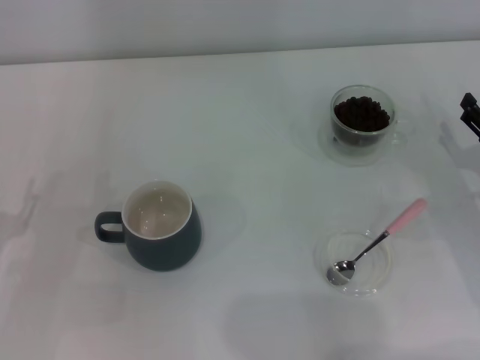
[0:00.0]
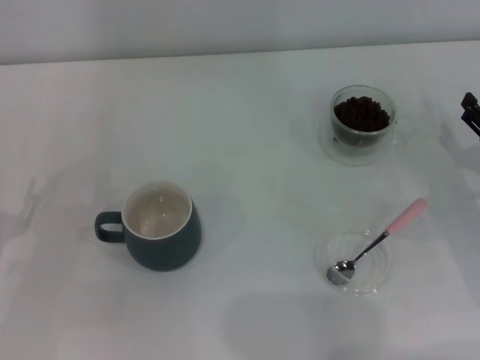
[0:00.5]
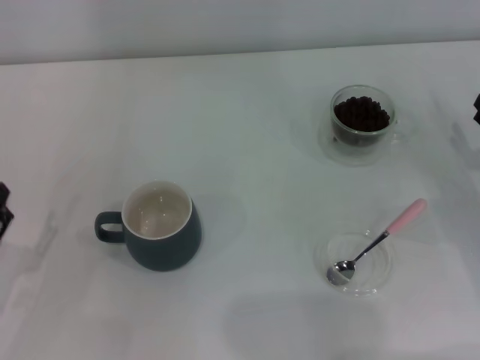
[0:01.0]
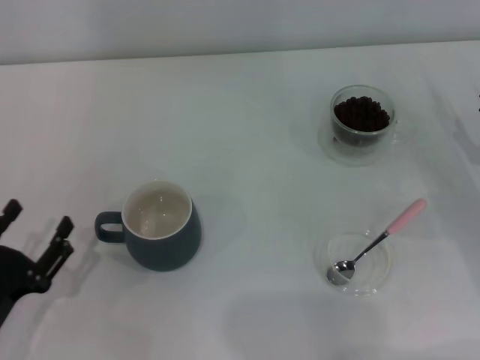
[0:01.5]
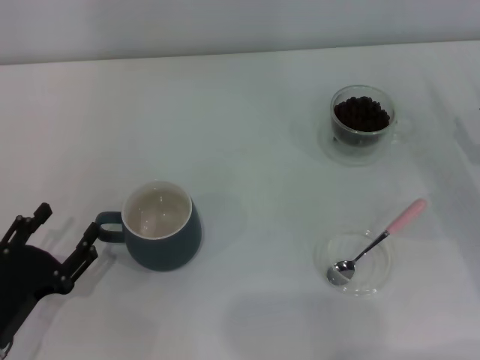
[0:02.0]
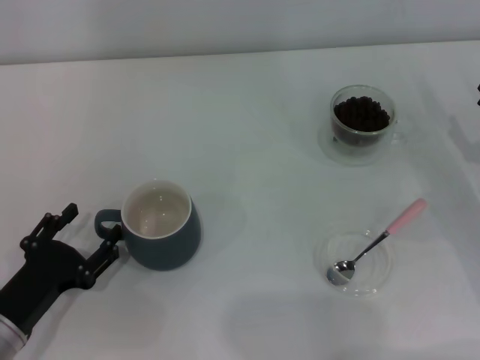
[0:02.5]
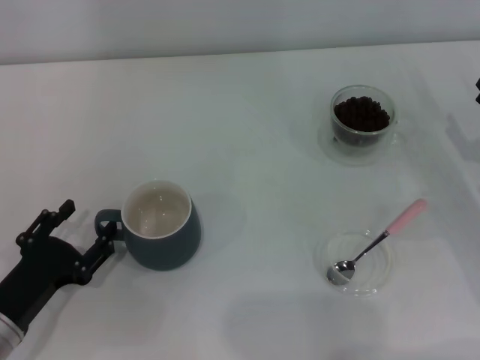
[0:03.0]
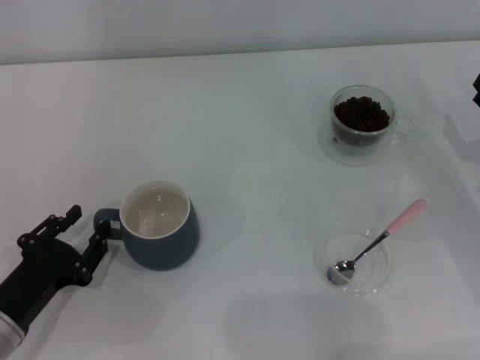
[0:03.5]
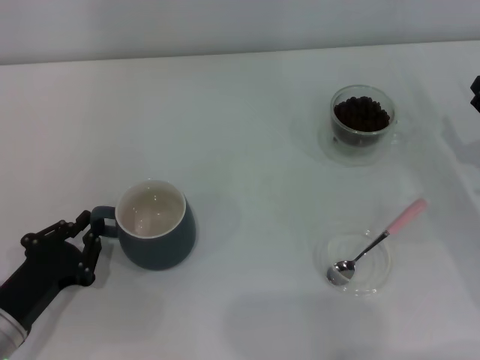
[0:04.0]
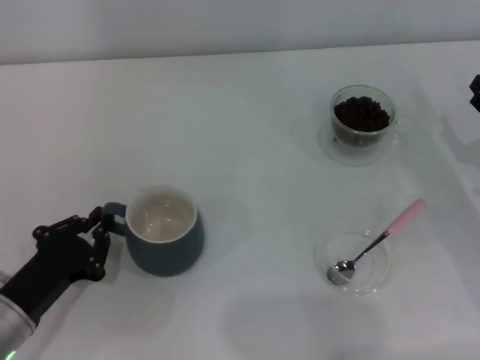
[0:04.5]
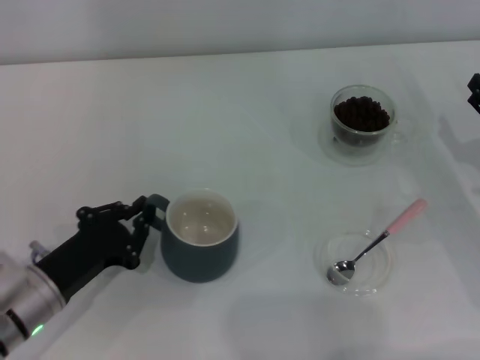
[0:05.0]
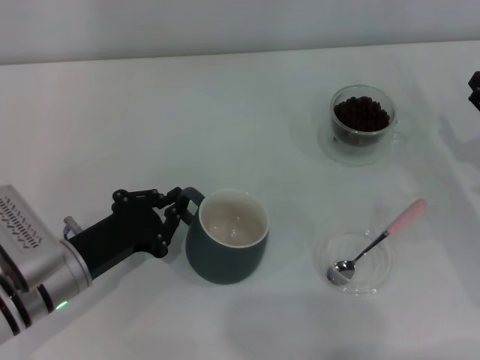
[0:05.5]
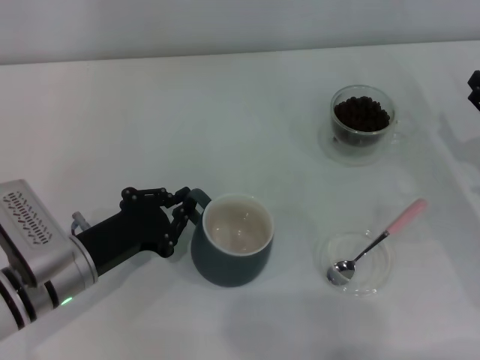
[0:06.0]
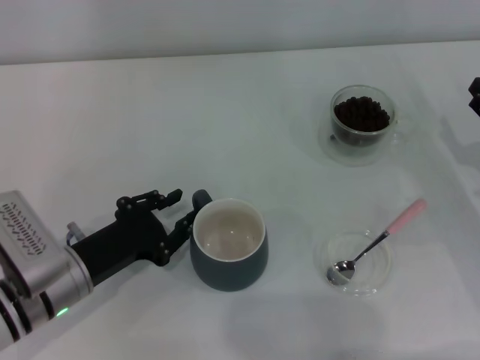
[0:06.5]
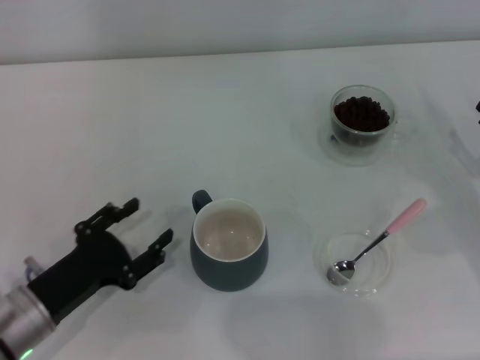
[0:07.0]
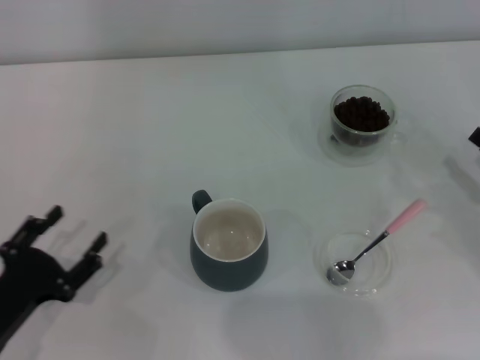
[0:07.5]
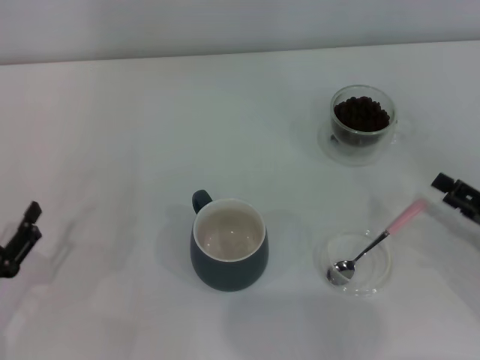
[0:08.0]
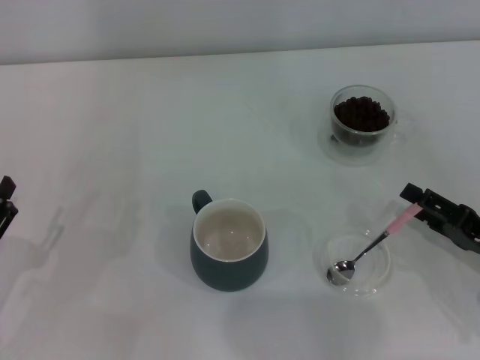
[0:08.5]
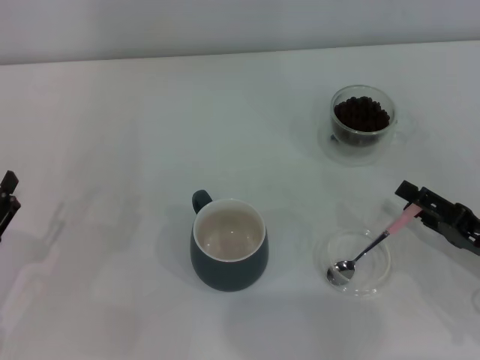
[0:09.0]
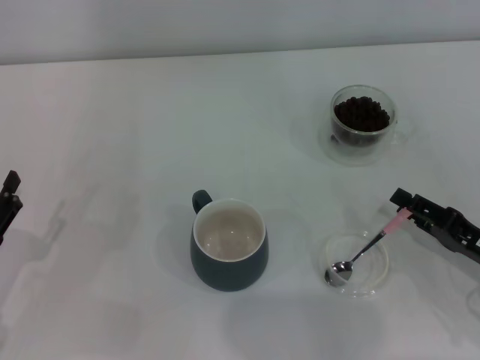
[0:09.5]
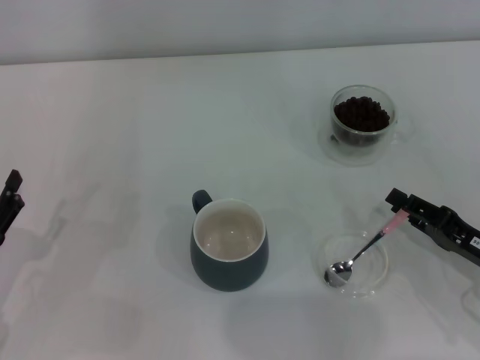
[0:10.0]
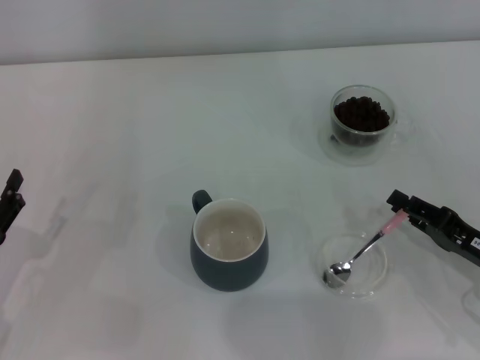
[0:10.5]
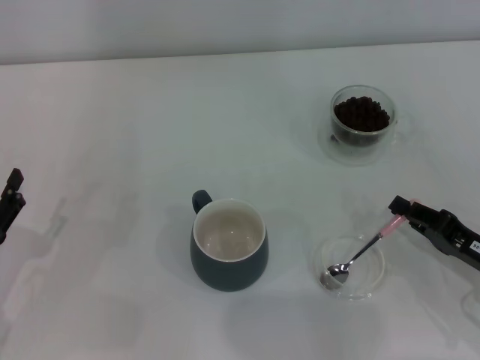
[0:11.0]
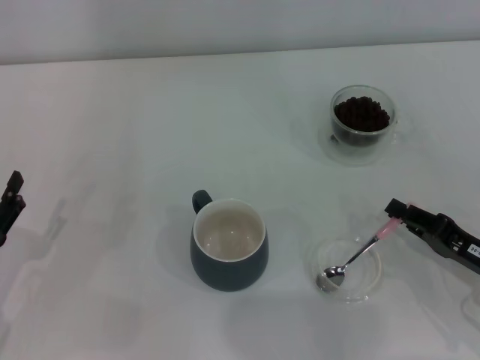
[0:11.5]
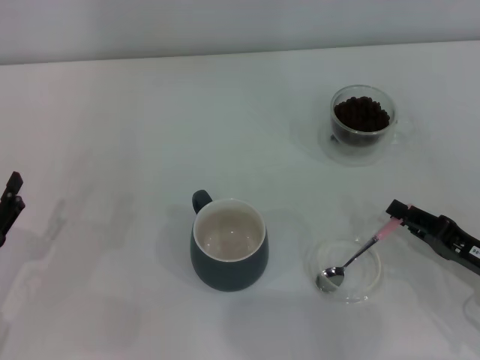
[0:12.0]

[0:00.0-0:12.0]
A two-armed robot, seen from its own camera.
Task of the whole recording: Use a pink spoon to take out the coffee beans from the glass and pour them into the gray cup.
Step, 0:00.0 to 0:07.0: Move the cup to the center of view with the left gripper.
0:00.0 to 0:02.0: The left gripper ends up some 5 cm from where it was.
0:02.0 to 0:04.0: The left gripper closes up.
0:04.0 to 0:06.0: The left gripper shifts some 10 cm forward and to the right.
0:06.0 to 0:08.0: The right gripper is displaced backward by roughly 5 cm, while the left gripper goes about 15 cm to the left and backward, and opens up.
0:08.0 to 0:10.0: The right gripper closes.
0:10.0 to 0:12.0: The two grippers keep their place.

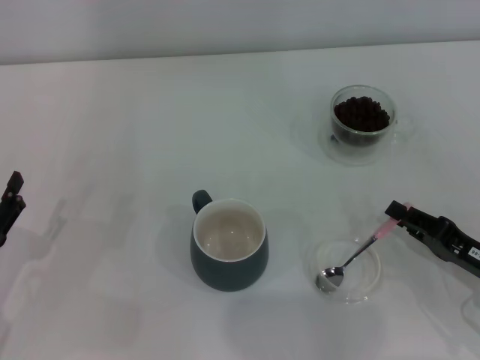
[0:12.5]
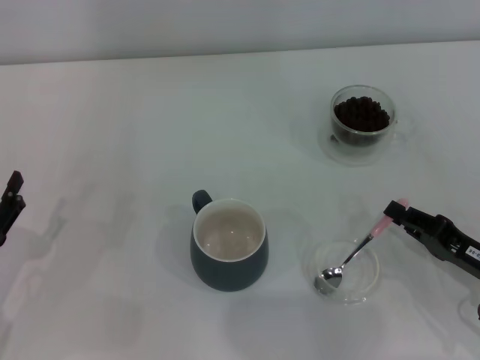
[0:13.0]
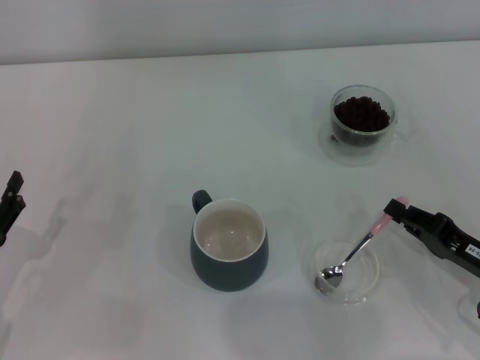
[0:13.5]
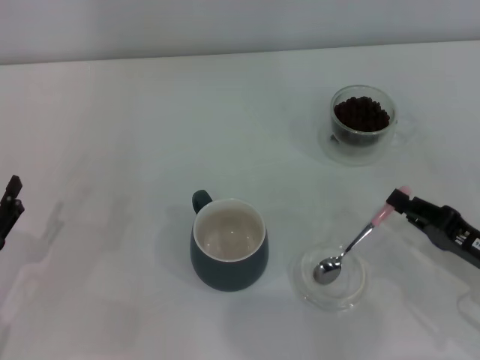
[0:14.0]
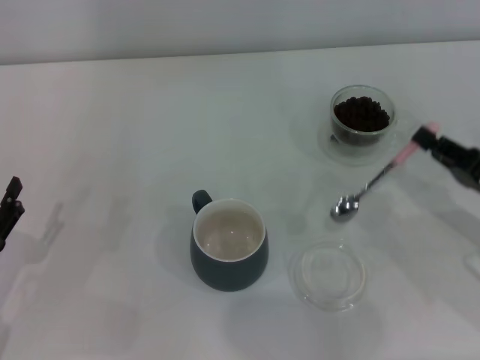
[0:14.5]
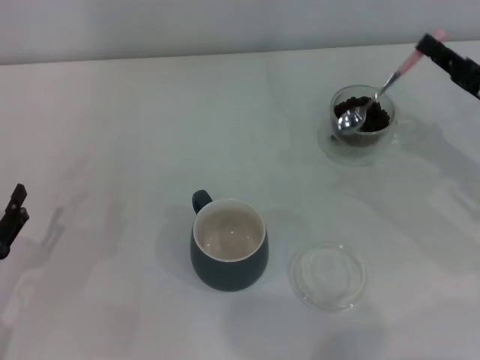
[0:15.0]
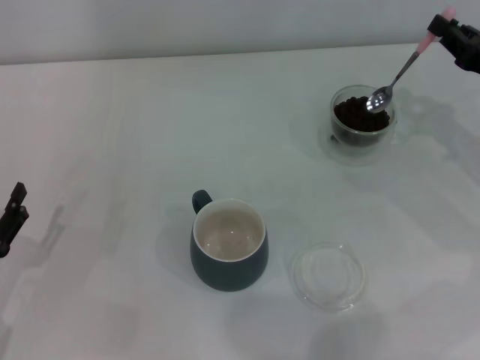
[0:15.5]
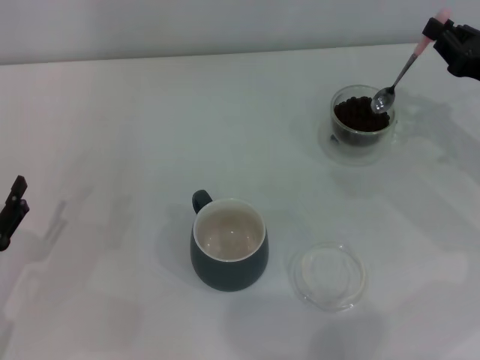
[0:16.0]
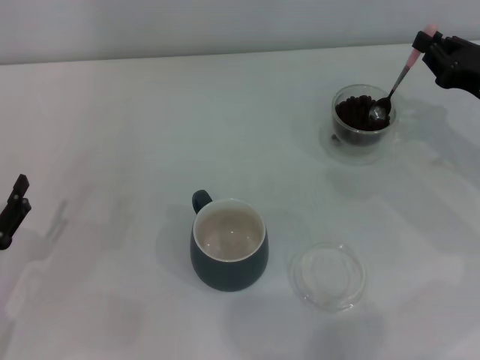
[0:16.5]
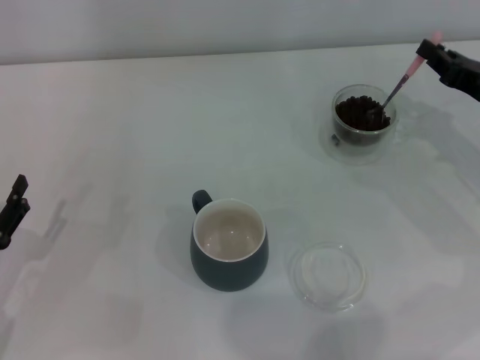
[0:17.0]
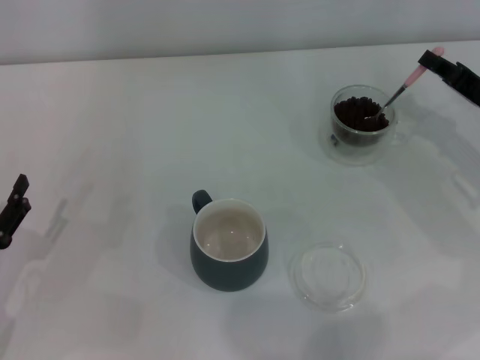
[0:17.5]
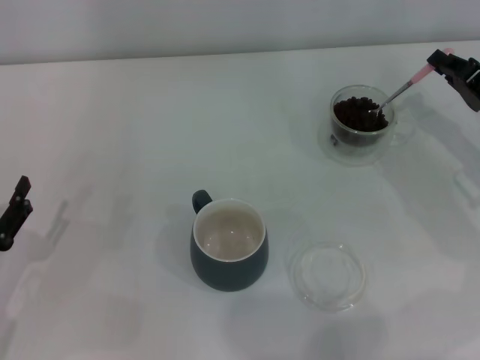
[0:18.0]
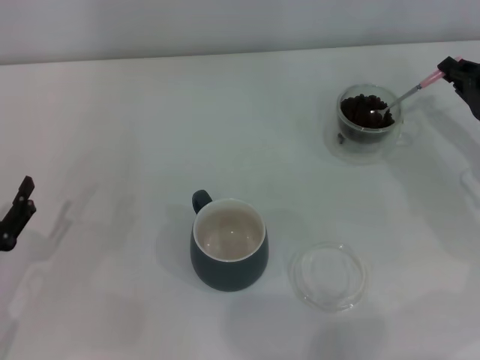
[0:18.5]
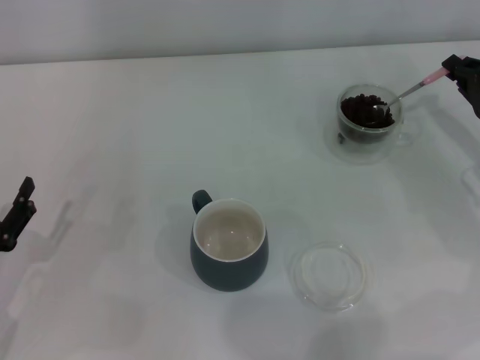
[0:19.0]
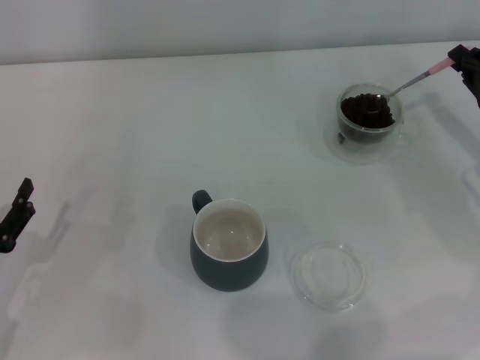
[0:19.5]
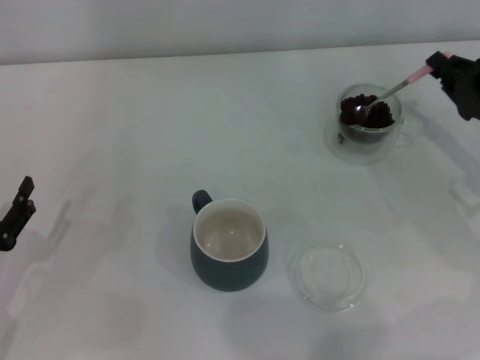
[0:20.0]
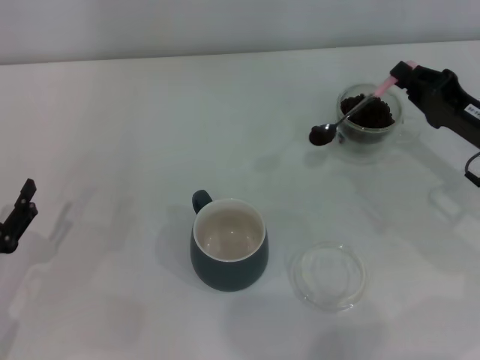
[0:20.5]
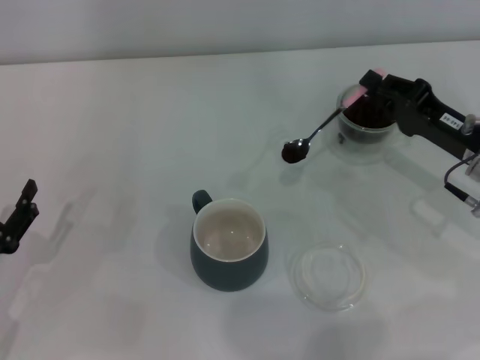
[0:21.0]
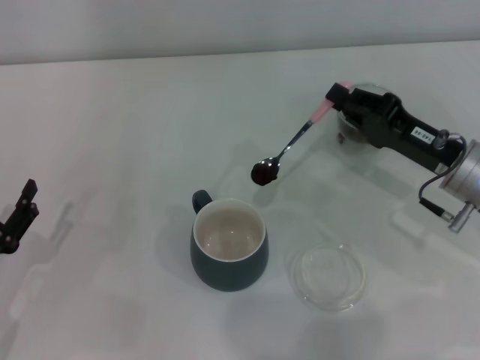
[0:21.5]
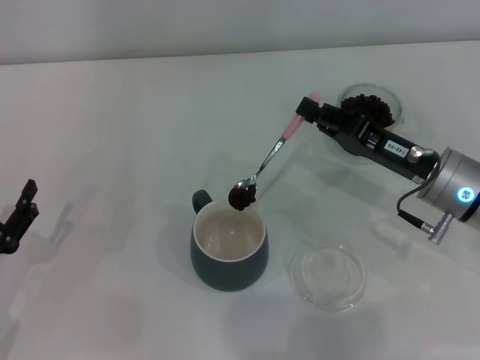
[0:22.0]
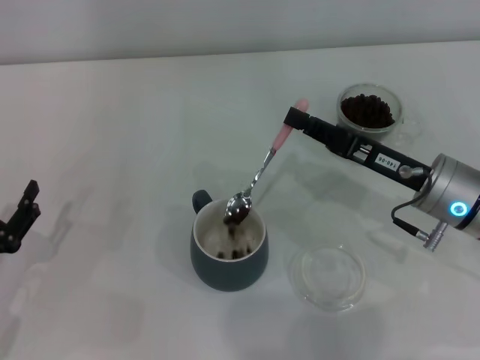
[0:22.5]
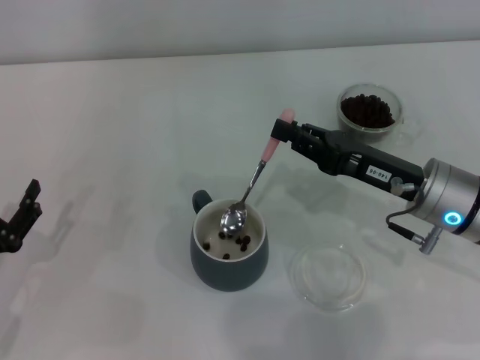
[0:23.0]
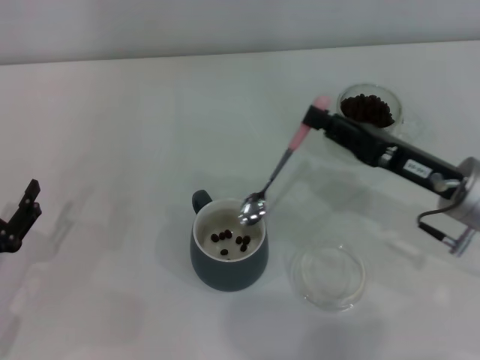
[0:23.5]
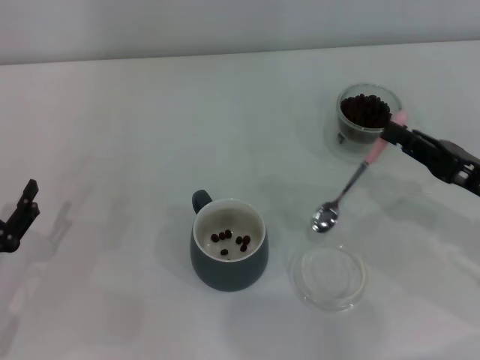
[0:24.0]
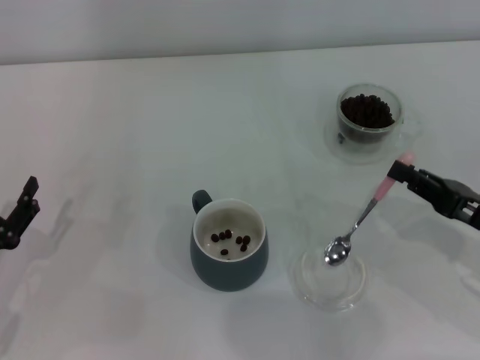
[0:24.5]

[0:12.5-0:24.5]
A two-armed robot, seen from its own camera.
Task of the whole recording: Use a pink spoon to take out the coffee beans from the glass and pour them into the gray cup.
Step, 0:12.5 to 0:14.5: Pick up the spoon with the right gripper.
Step, 0:15.0 to 0:23.0: Scoop a spoonful of beans into the cup with the right gripper.
0:12.5 to 0:14.5: The right gripper shifts by roughly 5 cm.
0:14.5 to 0:16.5: The right gripper moves forward, some 10 cm.
0:18.5 to 0:20.5: The grippers move only a little.
0:20.5 to 0:22.5: The right gripper shifts roughly 10 cm to the left.
0:22.5 to 0:24.5: The right gripper is displaced to the right and backward by about 10 cm.

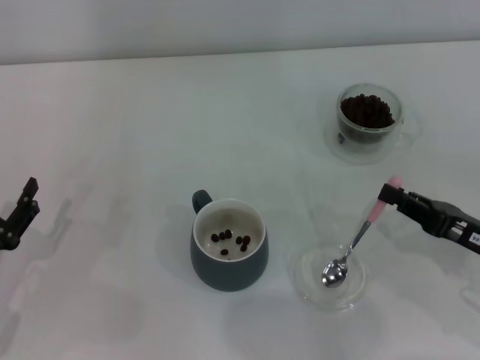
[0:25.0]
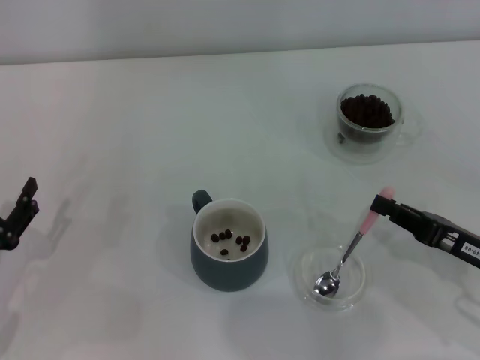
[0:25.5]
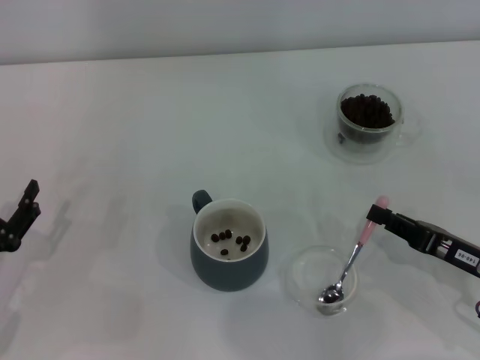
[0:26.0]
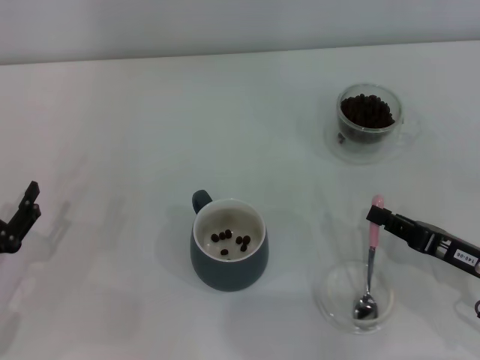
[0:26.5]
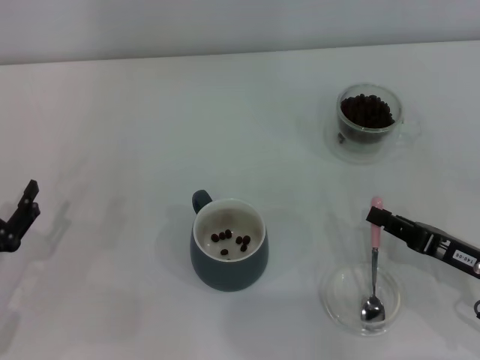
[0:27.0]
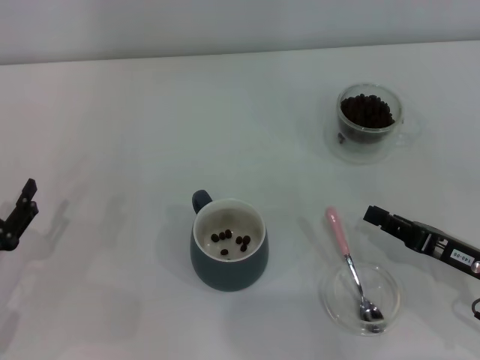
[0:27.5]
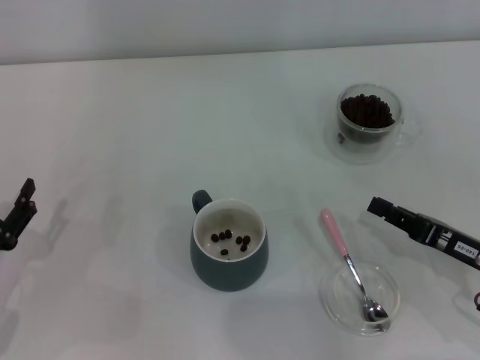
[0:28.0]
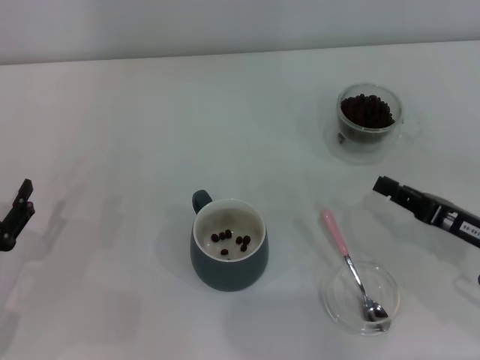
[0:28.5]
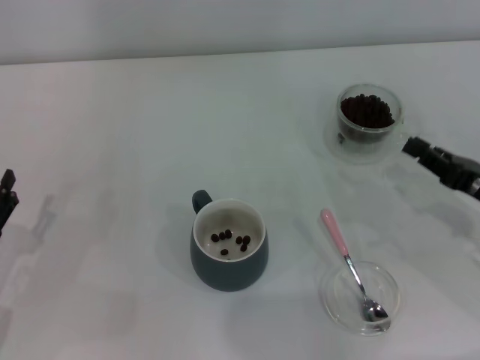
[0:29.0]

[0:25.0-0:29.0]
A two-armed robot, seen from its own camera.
Task of the whole recording: Use a pink spoon to take out the coffee beans from the glass and pour them into the gray cup.
Step, 0:25.0 to 0:27.0: Place the spoon back in its original place with the right gripper.
0:25.0 to 0:27.0: The grippers move only a little.
0:27.0 to 0:29.0: The right gripper moves roughly 5 cm.
